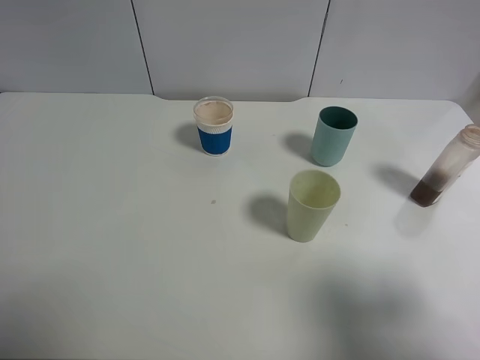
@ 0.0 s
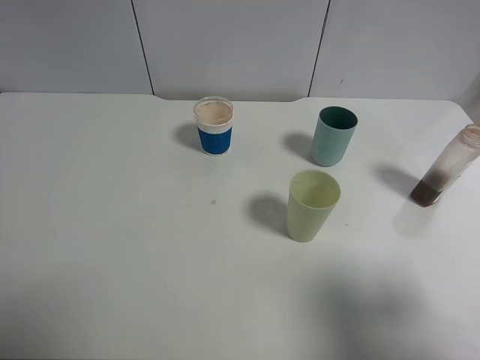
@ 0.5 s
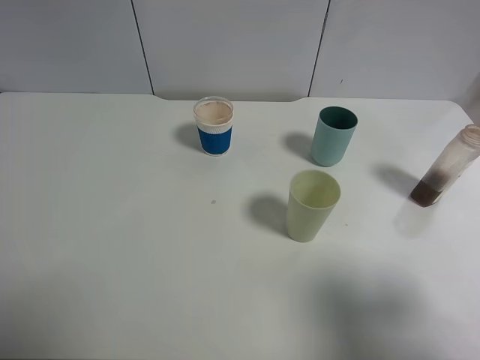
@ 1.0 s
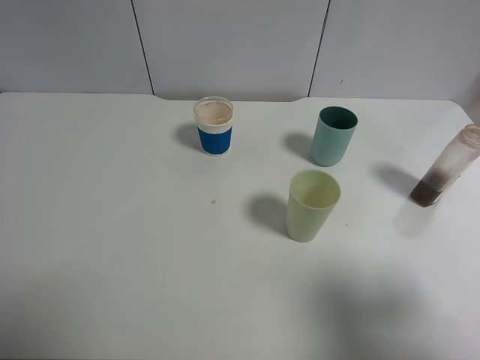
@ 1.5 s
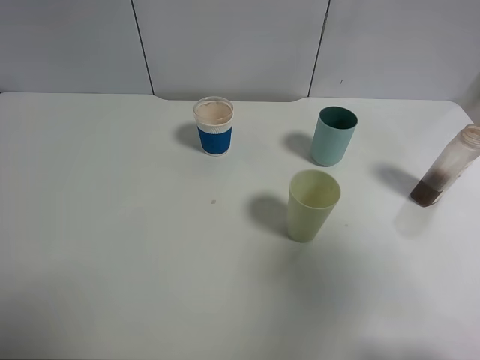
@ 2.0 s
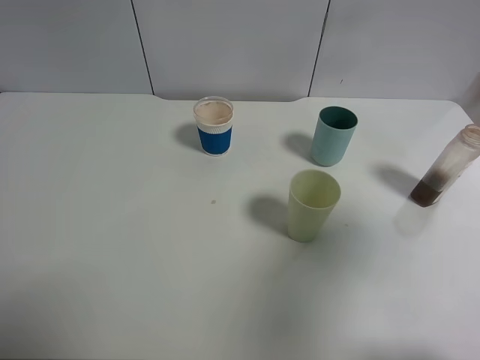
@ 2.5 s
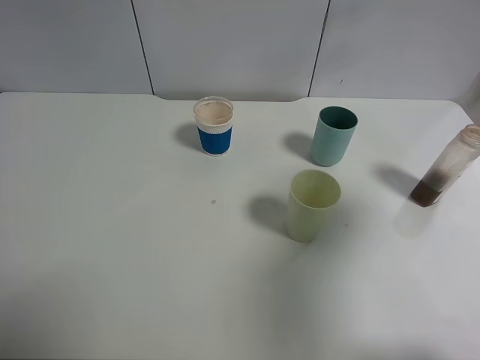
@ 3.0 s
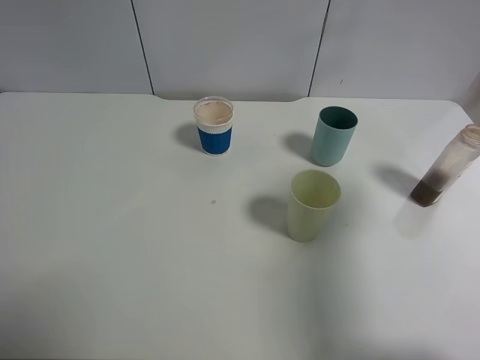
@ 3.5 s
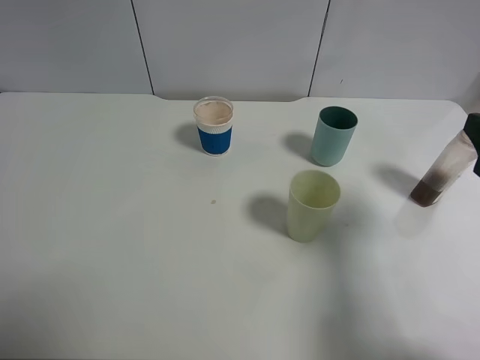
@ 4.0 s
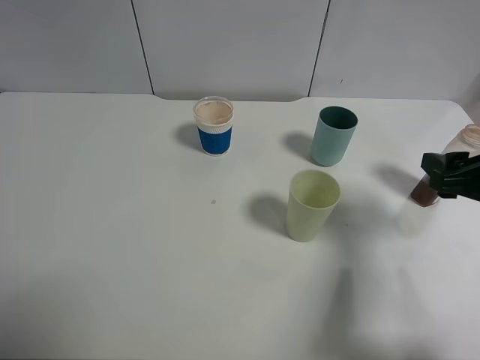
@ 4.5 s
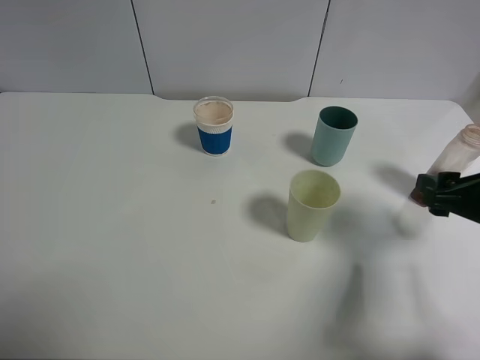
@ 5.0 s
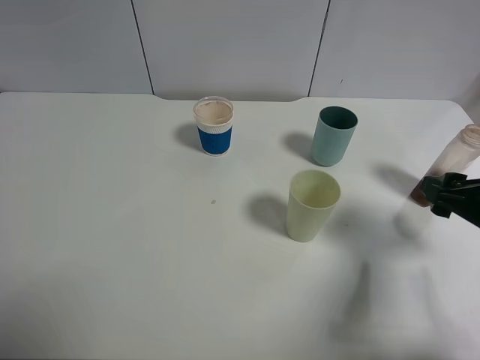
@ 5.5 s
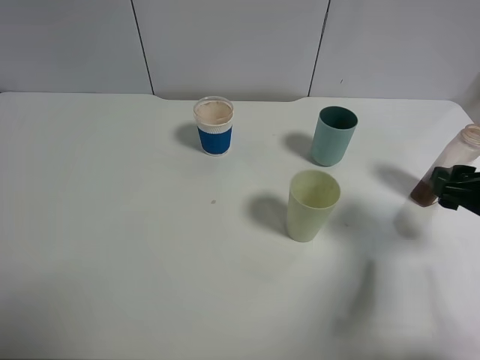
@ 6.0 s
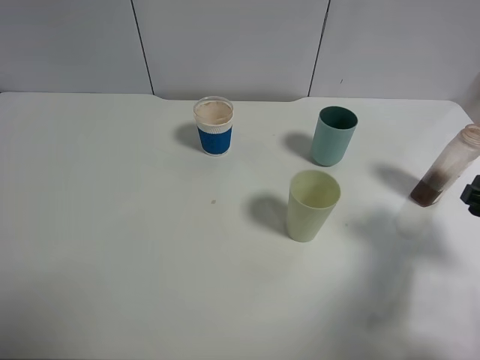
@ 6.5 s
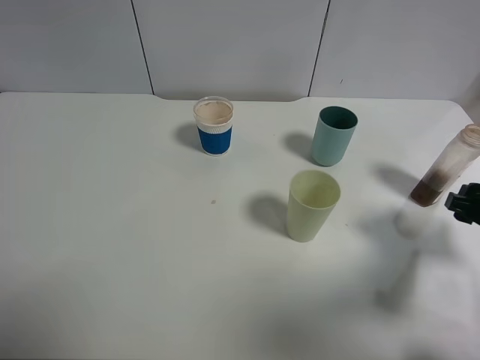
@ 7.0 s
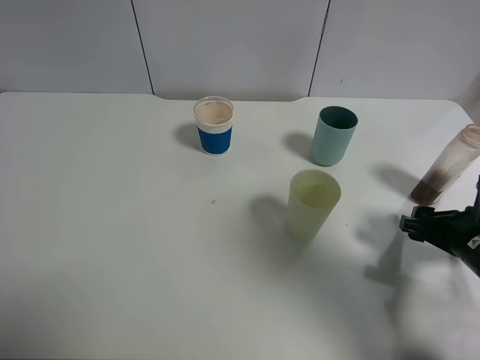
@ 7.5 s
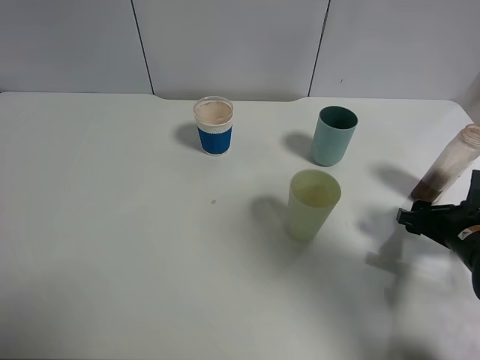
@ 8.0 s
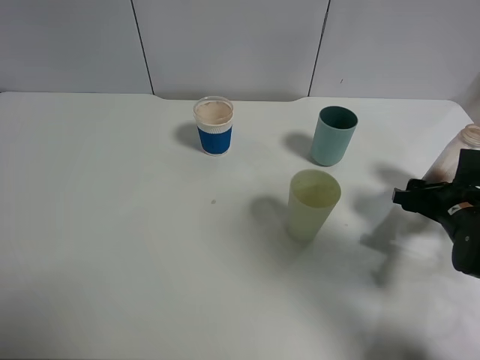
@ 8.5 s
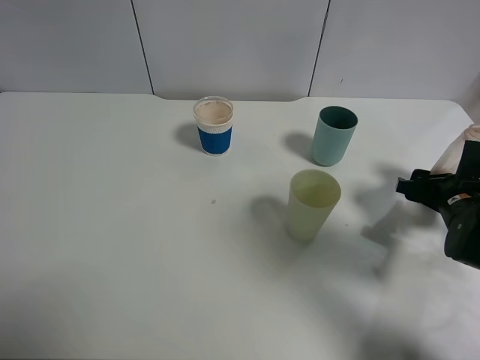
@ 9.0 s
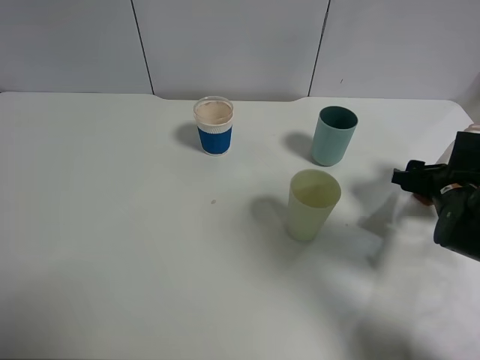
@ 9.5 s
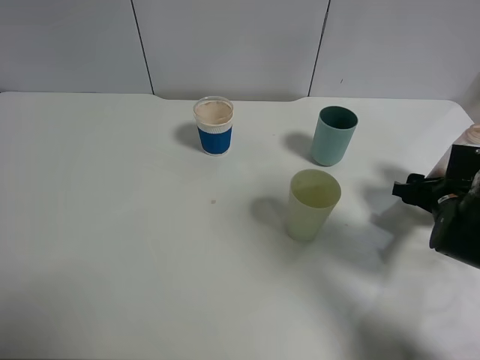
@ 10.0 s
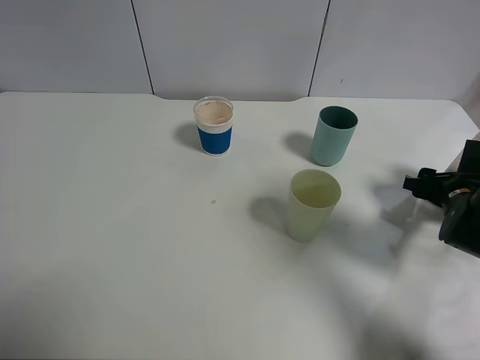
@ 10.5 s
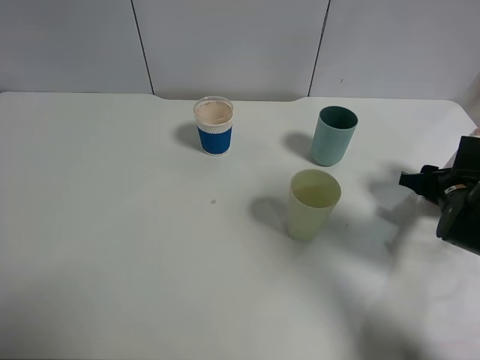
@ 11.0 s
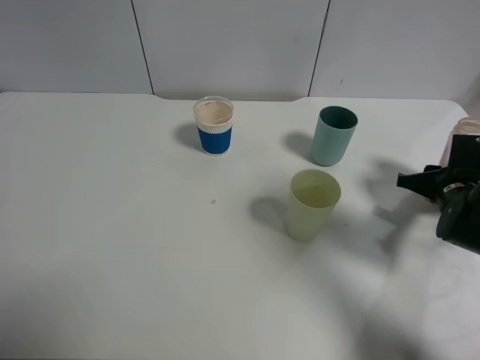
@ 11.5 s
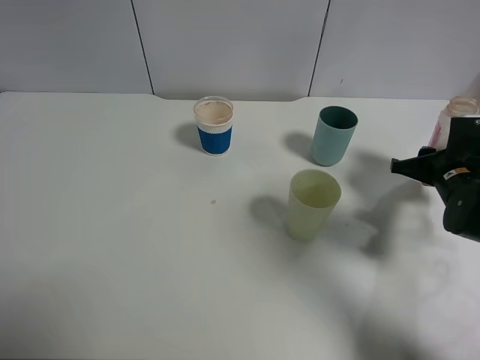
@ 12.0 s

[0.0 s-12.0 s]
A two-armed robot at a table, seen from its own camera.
Task of the whole recording: use a clamp to hold the bottle of the drink, pour the beverage into a random cup, then clamp the cup containing the drink and pour the drink into another random cup.
Step, 0.0 to 12.0 s: Pick up the drink bottle with right gripper.
0.0 to 2.0 s: The right gripper heads upward, covering some 10 cm.
2.0 to 4.0 s: The right gripper heads downward and forward, covering roughly 20 cm.
4.0 to 6.0 s: The right gripper is displaced downward by about 5 cm.
6.0 to 8.0 s: The right gripper moves downward, about 10 cm.
8.0 to 10.0 s: The right gripper is displaced forward by some 5 cm.
10.0 to 12.0 s: The right gripper closes its fingers.

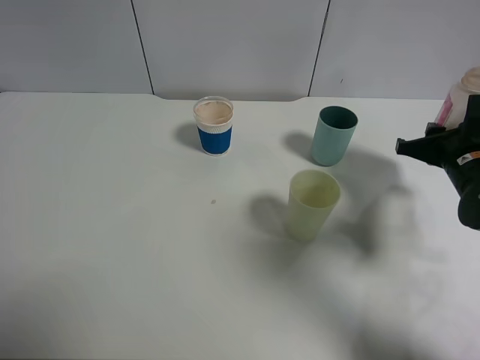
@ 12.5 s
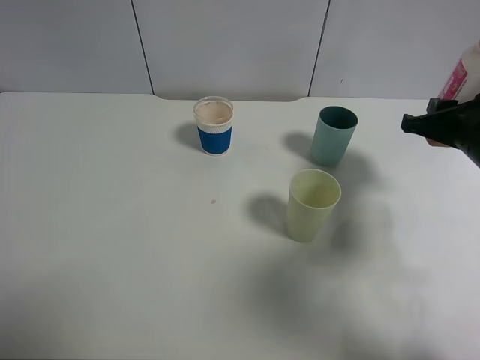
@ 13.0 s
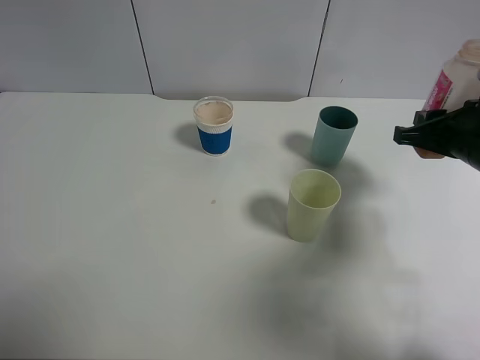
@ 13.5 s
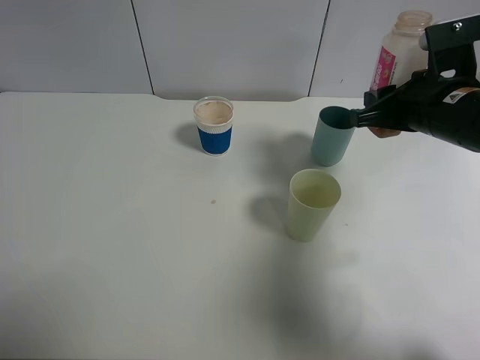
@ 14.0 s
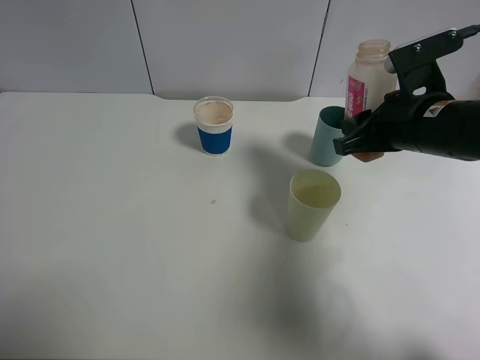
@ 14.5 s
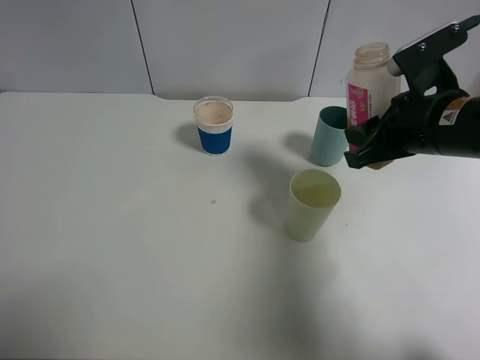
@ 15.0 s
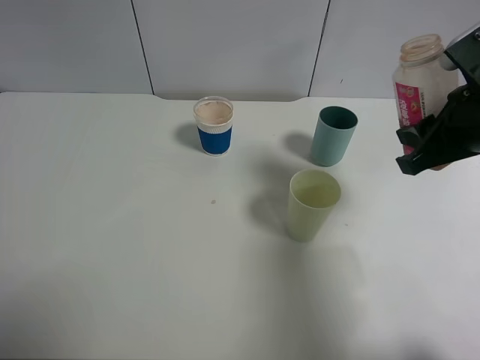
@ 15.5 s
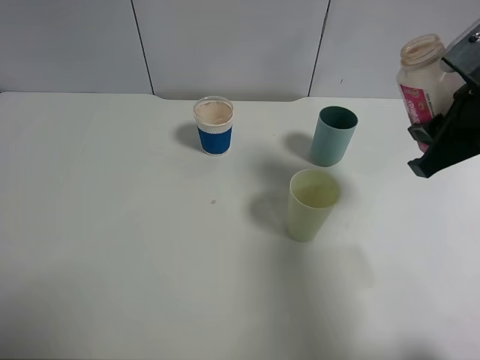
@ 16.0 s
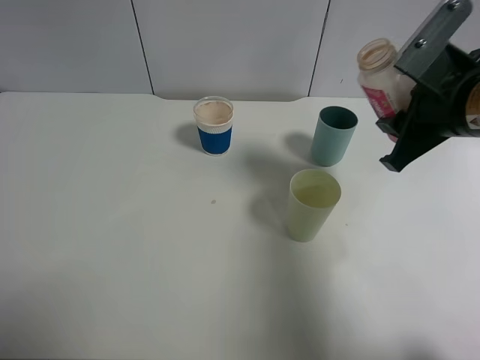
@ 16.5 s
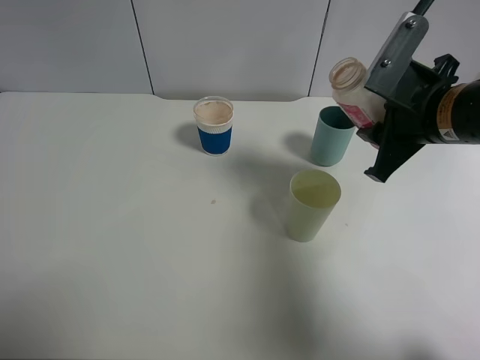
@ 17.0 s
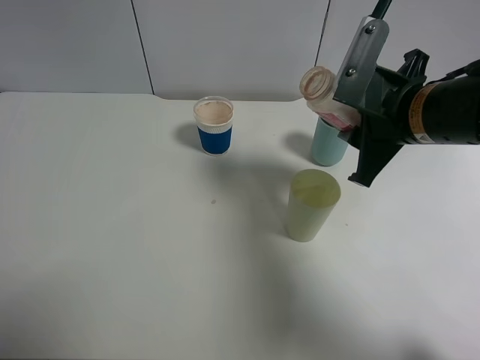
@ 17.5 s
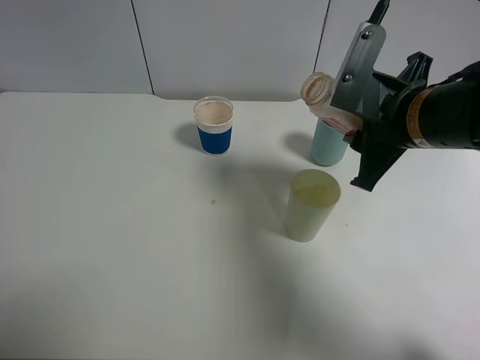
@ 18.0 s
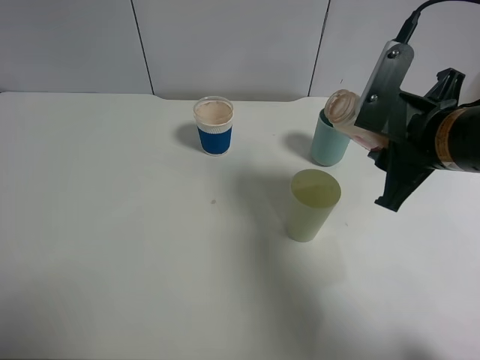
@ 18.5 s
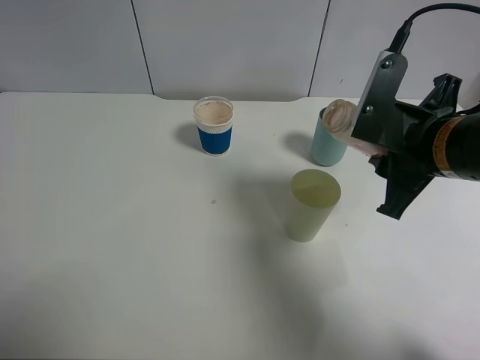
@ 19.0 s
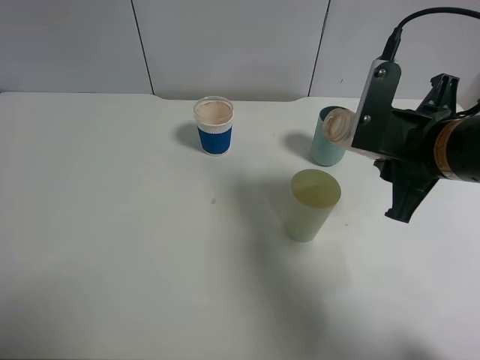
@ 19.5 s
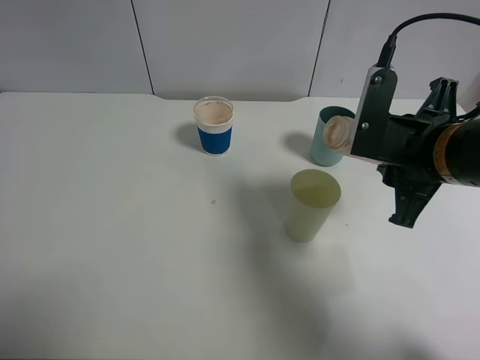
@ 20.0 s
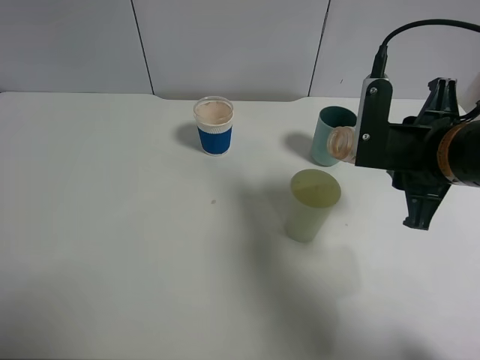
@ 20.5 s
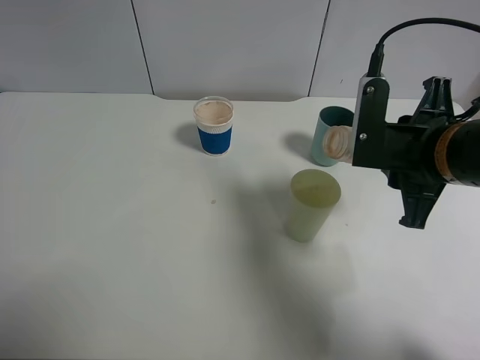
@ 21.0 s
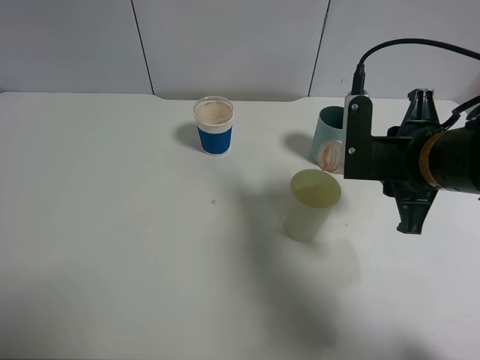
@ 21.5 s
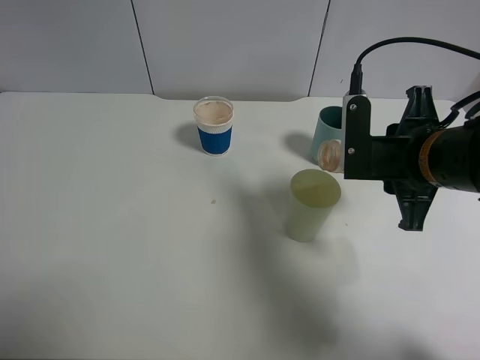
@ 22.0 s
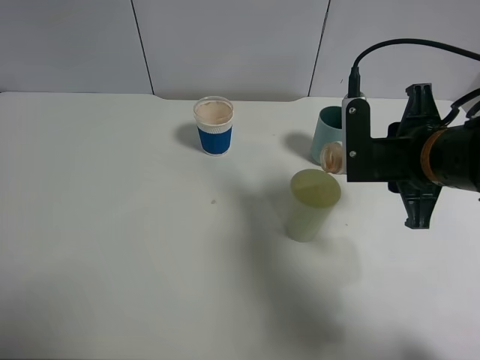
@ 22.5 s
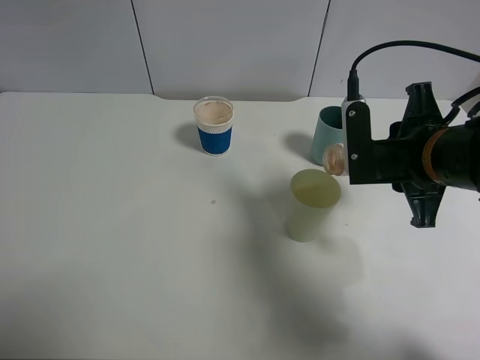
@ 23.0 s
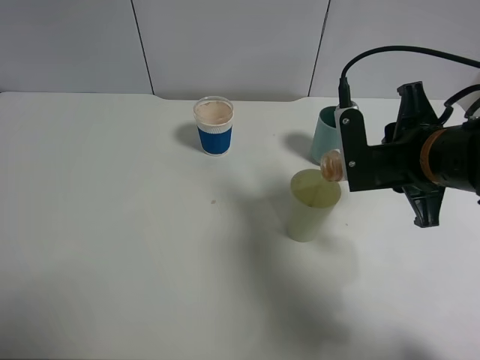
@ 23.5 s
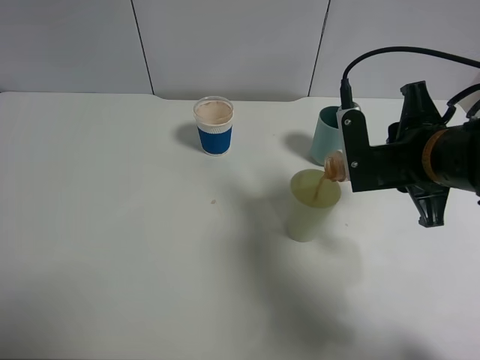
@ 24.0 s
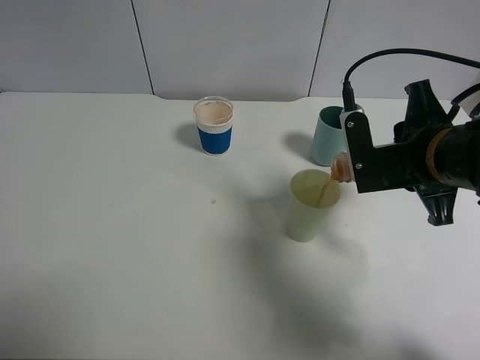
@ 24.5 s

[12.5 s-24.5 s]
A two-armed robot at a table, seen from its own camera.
Task of the whole recording: use a clamp to hold the bottle of the drink, pour the beverage into a random cup, then clamp the cup containing the drink and pour the drink into another random cup.
12.5 to 14.5 s: The right gripper travels to the left and upward by approximately 10 cm.
16.5 to 18.5 s: The grippers stay close to where they were, moving slightly.
18.5 to 20.5 s: The grippers move only a little.
20.5 to 22.5 s: The grippers make only small movements.
22.5 to 24.5 s: The grippers move only a little.

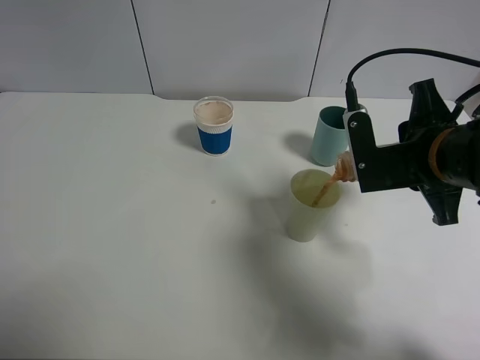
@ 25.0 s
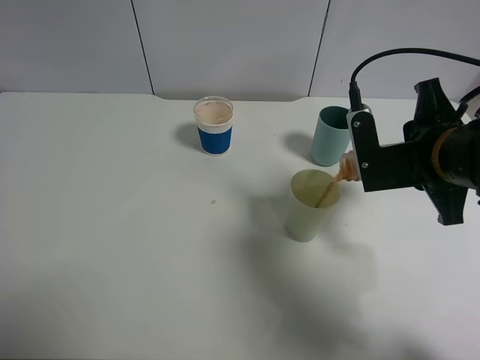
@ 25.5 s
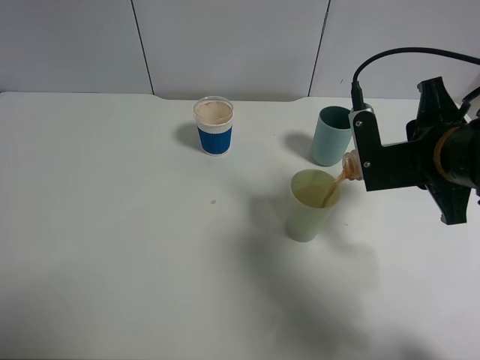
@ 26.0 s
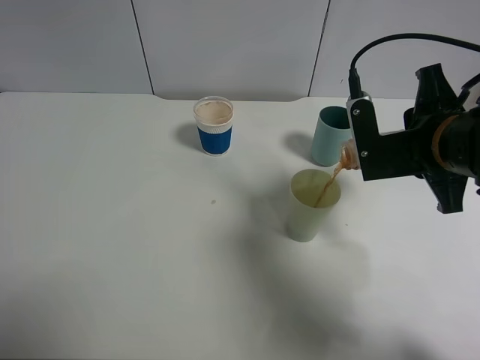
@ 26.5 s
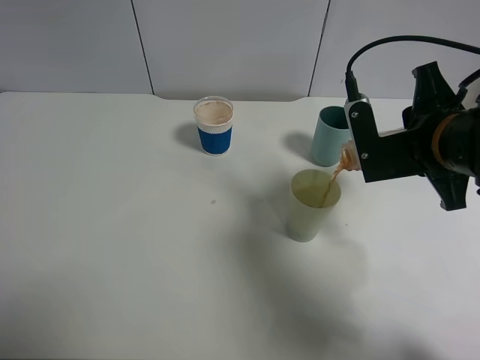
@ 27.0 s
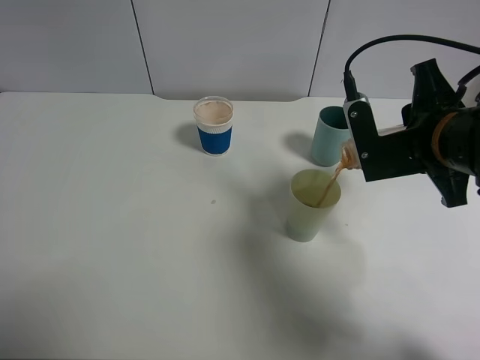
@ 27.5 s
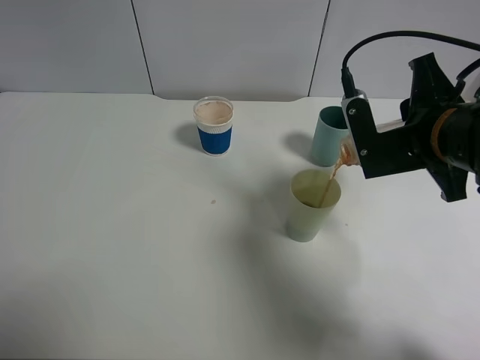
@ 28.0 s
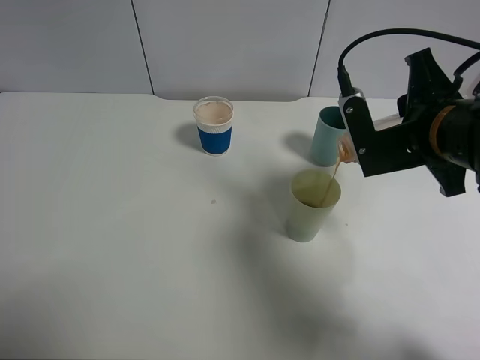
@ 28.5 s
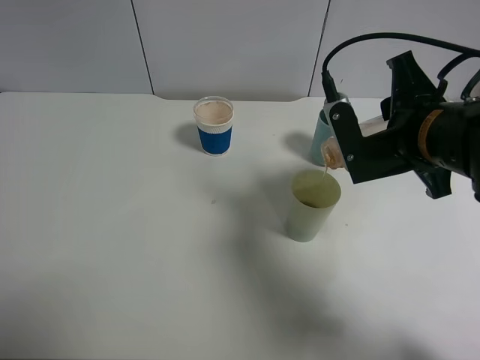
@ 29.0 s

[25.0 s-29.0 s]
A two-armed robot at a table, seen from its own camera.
Task of the whole recording: use a clamp to hold the bottle of the drink, pour the beverage into a random cup, then clamp the cup containing the drink and pour the drink into another random cup.
25.0 to 27.0 s: Neither gripper changes place.
27.0 to 29.0 s: There are only small adjustments of the grippers.
